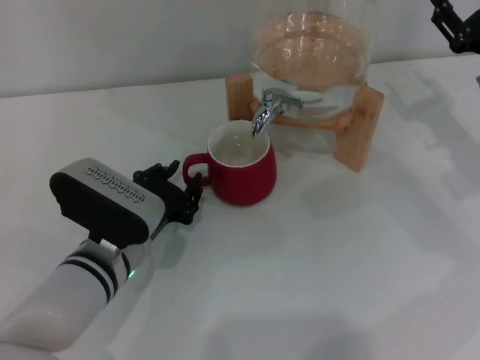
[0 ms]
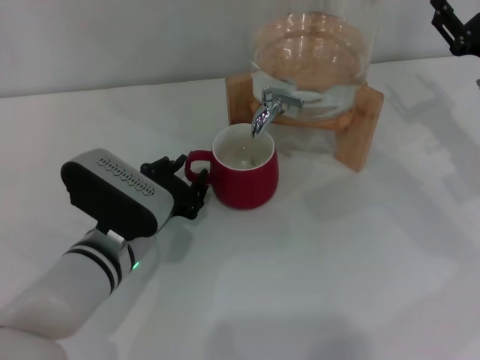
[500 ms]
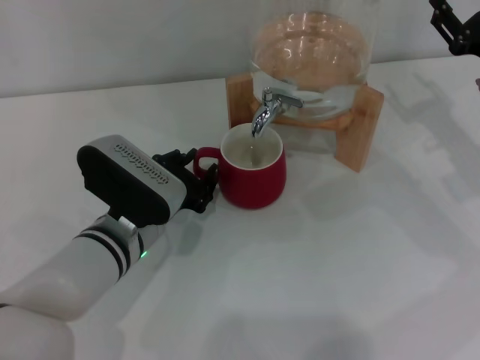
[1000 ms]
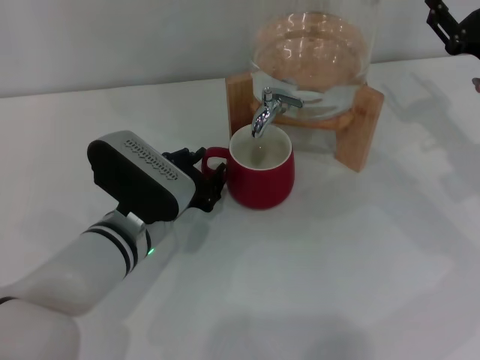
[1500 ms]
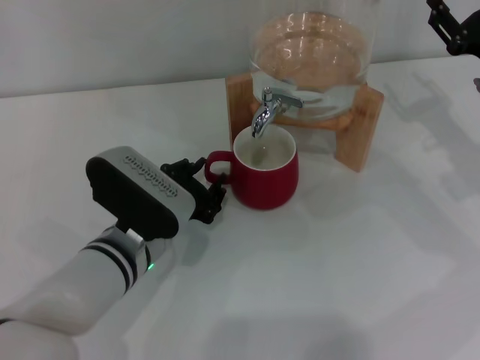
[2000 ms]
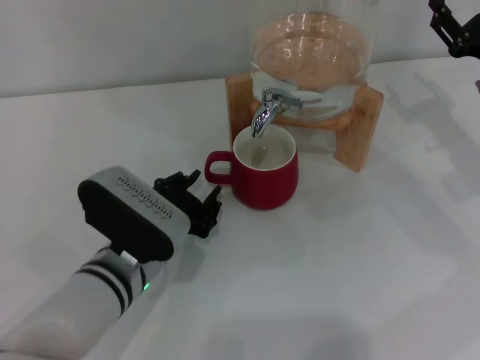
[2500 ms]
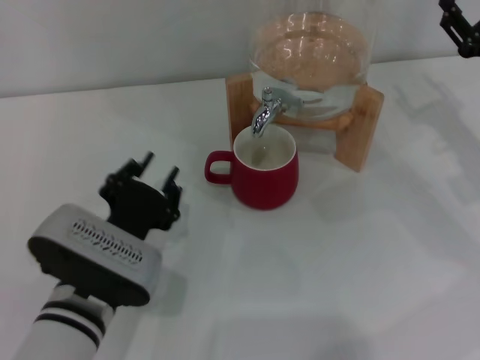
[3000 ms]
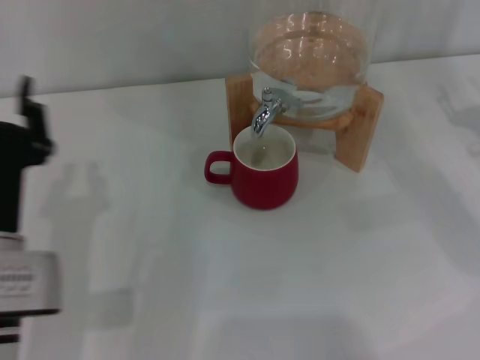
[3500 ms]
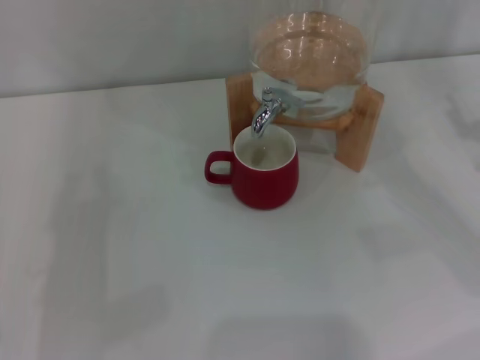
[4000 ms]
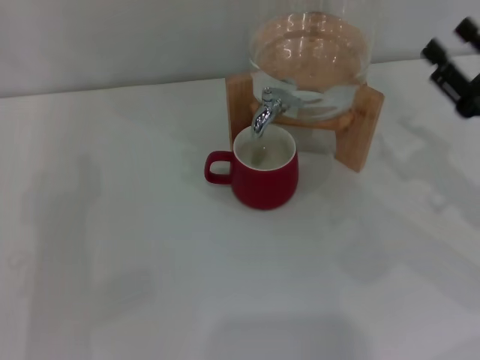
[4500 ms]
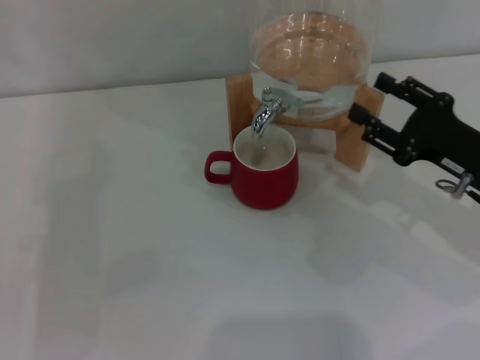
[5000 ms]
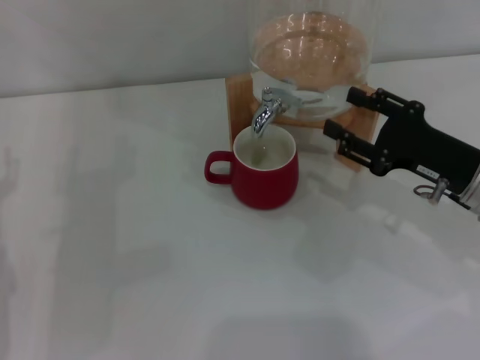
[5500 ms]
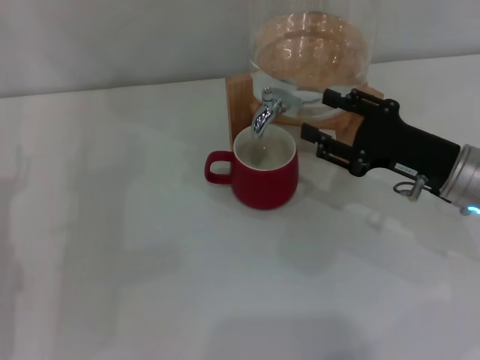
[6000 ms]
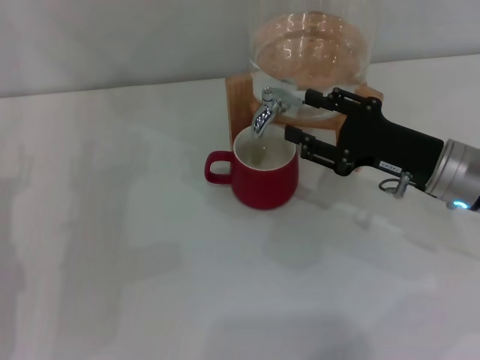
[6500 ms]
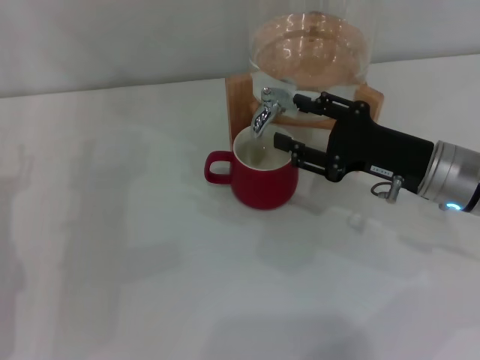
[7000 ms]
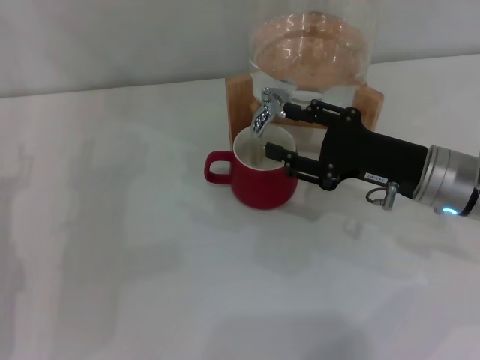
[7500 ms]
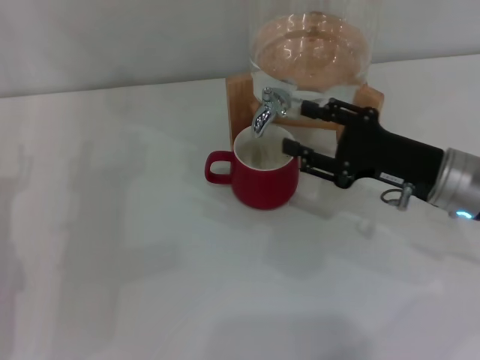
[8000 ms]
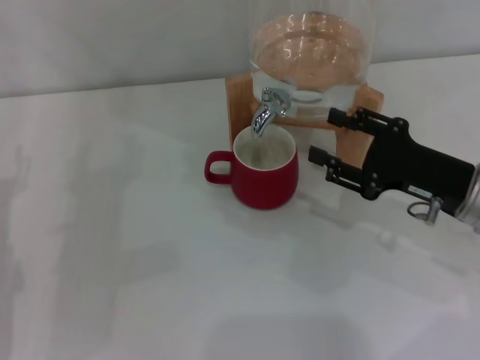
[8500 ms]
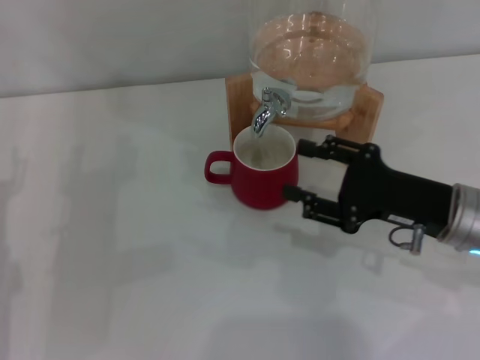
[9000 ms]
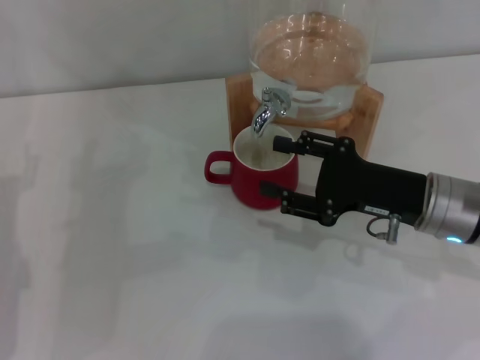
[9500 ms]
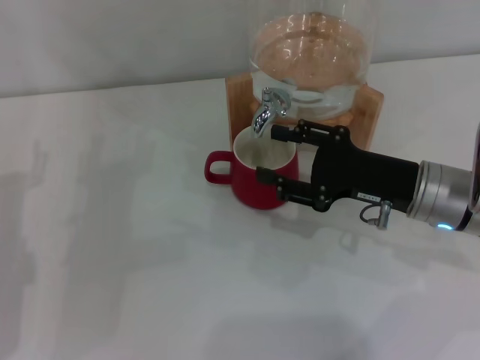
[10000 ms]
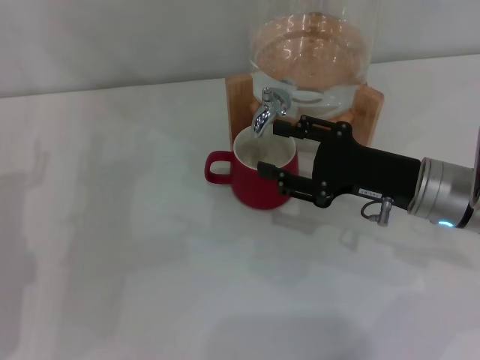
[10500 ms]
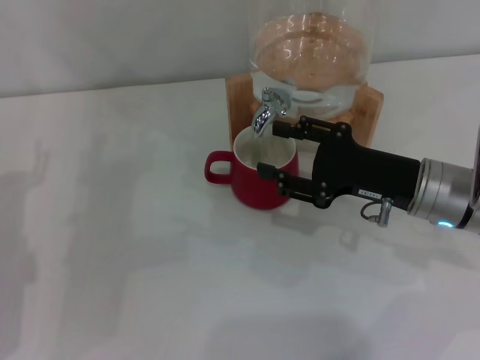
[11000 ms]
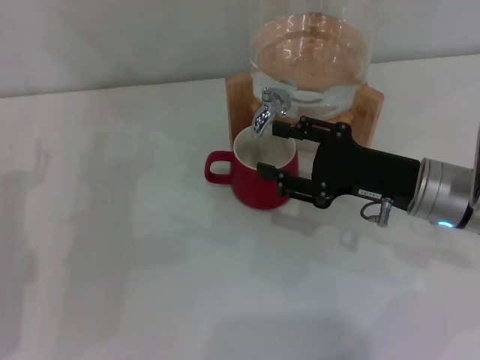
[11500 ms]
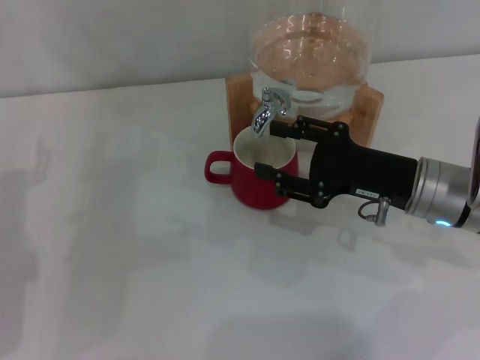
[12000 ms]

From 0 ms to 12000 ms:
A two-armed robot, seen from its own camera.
Task of the whole recording: the left gripper pick up the red cup and place it horizontally under the faucet, the right gripper turn on the faucet to fill the cup, and then turn off the faucet.
Step, from 0 ms to 2500 ms: Move the cup beneath the water dispenser nozzle with the left gripper.
From 0 ms to 2000 ms: The grippers stay close to where they were, moving slightly.
From 2000 ms to 4000 ms: The left gripper moves to the left, some 20 cm; the right gripper travels backward by about 5 cm.
From 4000 ms to 6000 ms: The right gripper moves to the left, about 10 cm.
From 6000 ms to 10000 ms: There are only small adjustments of the grippers.
From 10000 ms to 12000 ms: Both grippers stay about where they are.

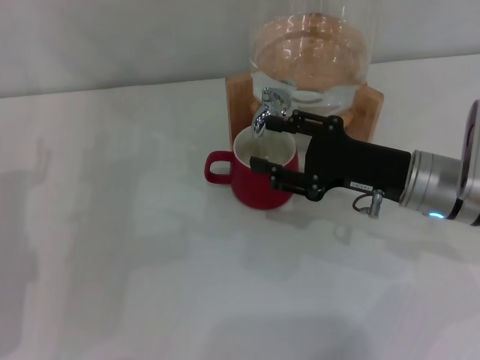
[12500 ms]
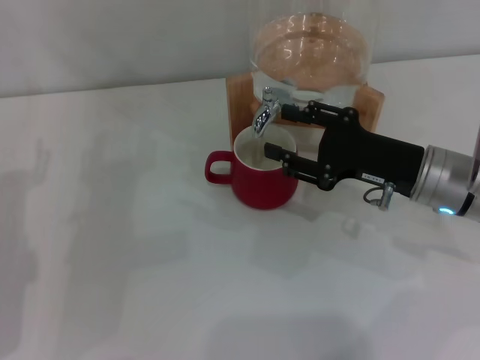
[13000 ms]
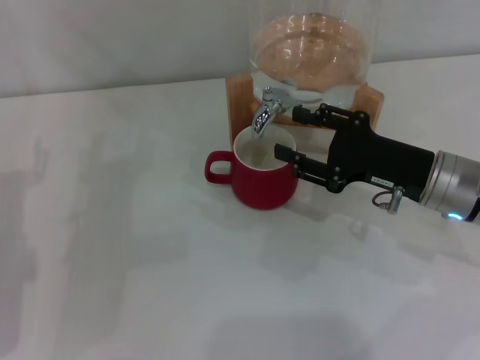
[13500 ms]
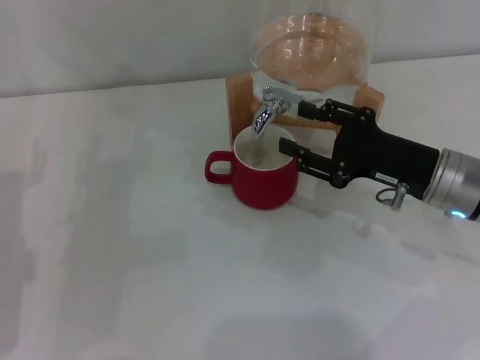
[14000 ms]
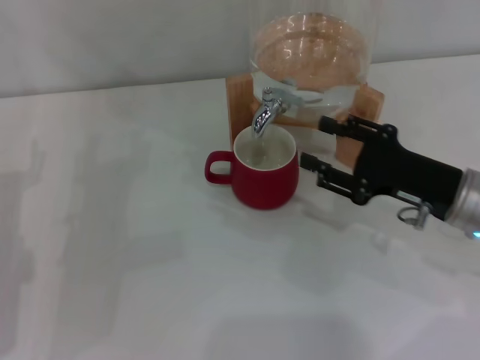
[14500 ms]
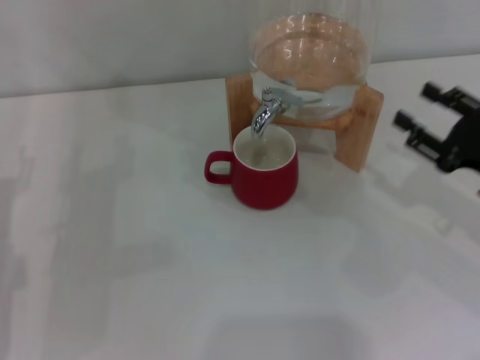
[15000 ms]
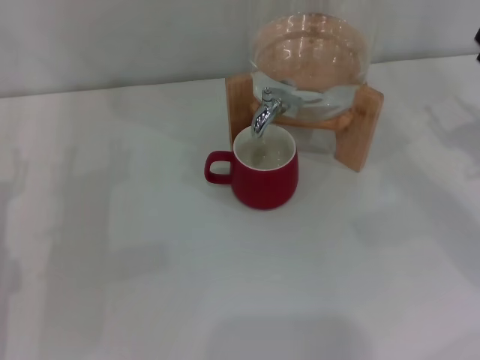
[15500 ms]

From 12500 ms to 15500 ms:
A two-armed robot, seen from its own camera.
Task of the whole recording: the left gripper pick up the red cup and place it horizontally under the faucet, the right gripper turn on the faucet to fill the cup, and then turn off the faucet.
Step, from 12500 ms to 14000 ms: Close the dispenser valve with the right gripper.
From 12500 ms to 14000 ms: There are only small adjustments of the grippers.
From 14000 ms to 15500 ms: The right gripper heads to the right, covering some 10 cm.
